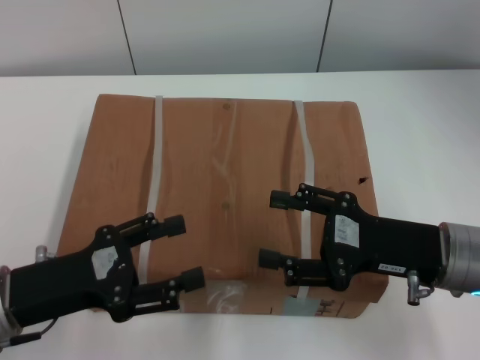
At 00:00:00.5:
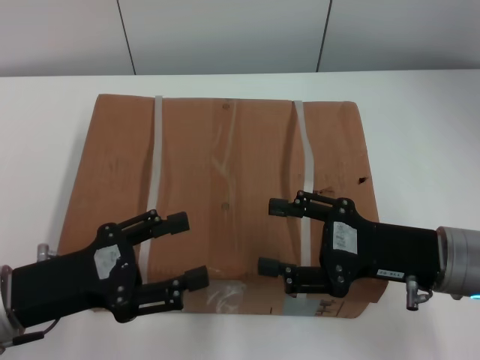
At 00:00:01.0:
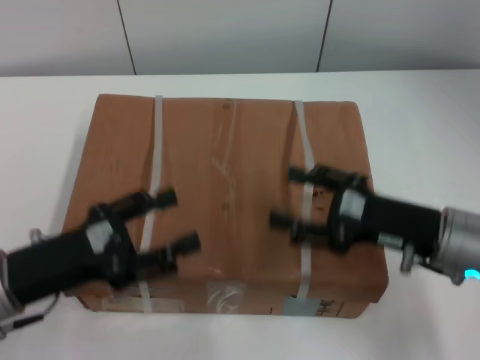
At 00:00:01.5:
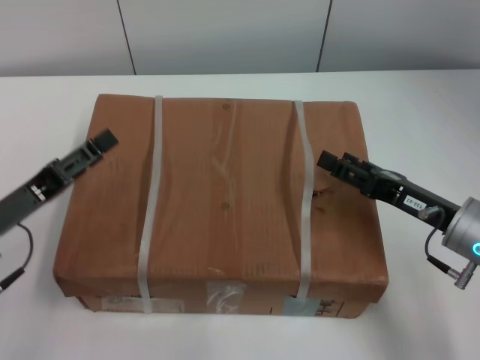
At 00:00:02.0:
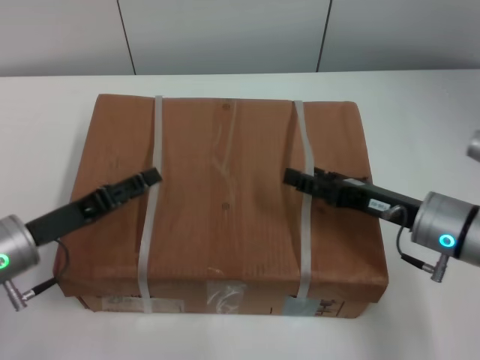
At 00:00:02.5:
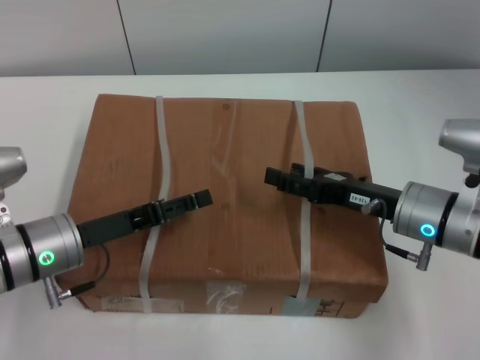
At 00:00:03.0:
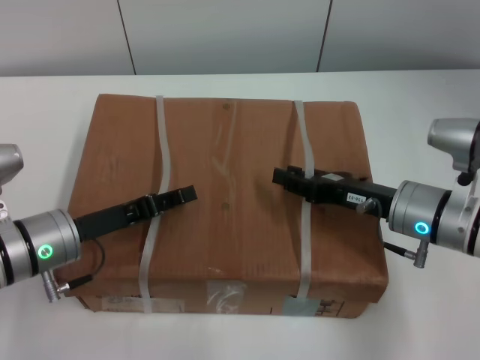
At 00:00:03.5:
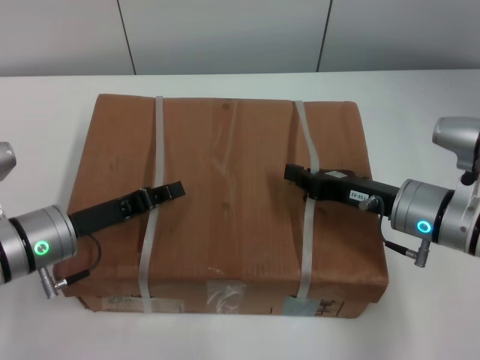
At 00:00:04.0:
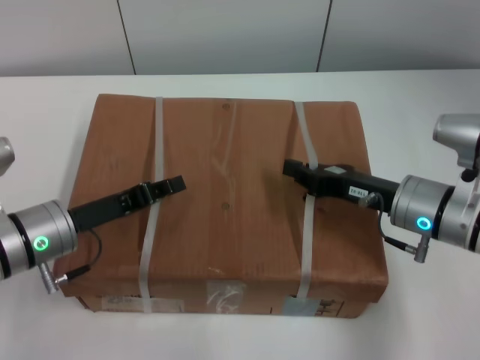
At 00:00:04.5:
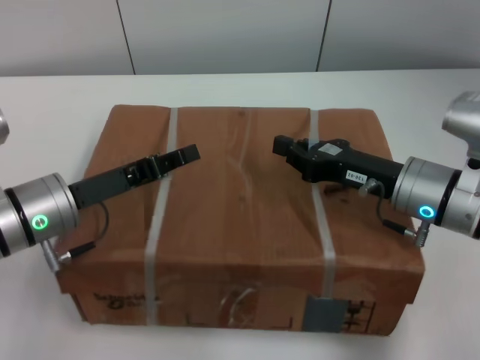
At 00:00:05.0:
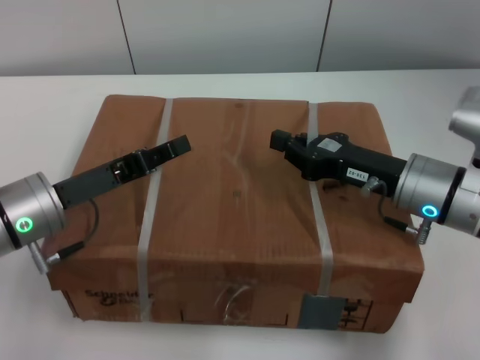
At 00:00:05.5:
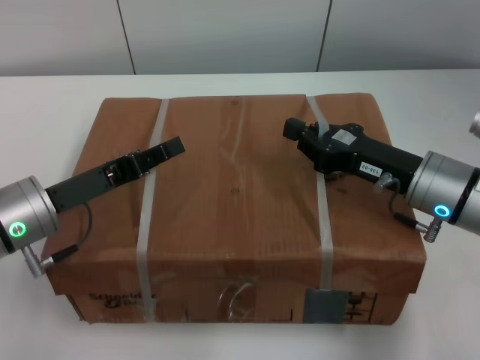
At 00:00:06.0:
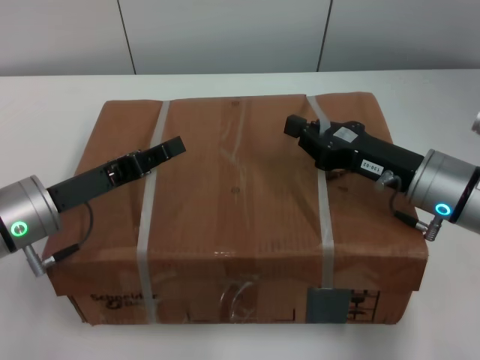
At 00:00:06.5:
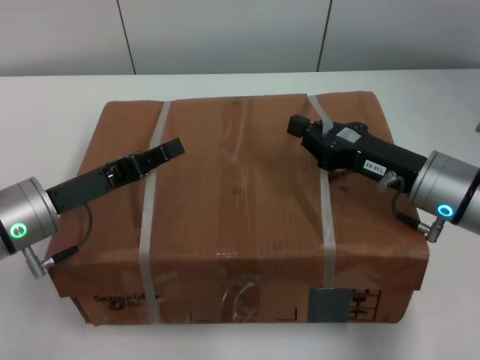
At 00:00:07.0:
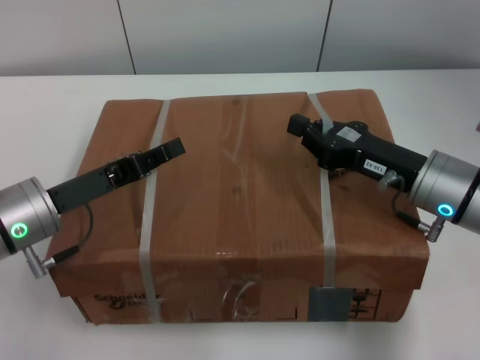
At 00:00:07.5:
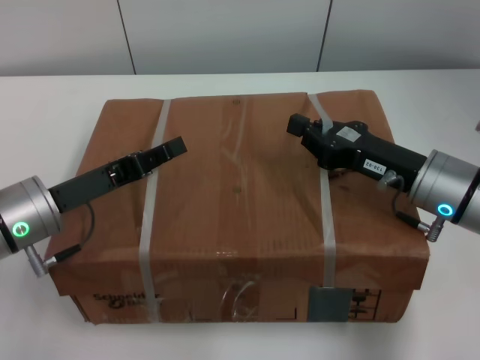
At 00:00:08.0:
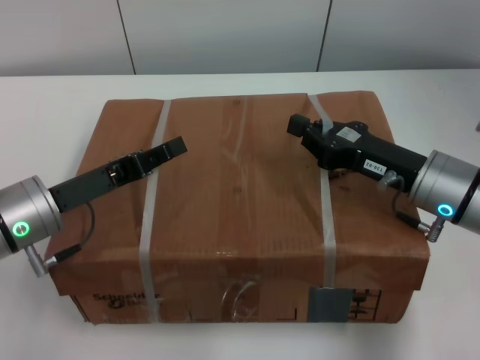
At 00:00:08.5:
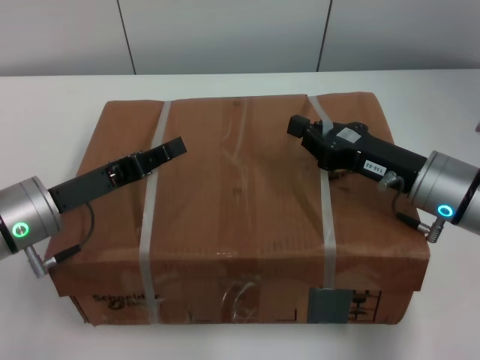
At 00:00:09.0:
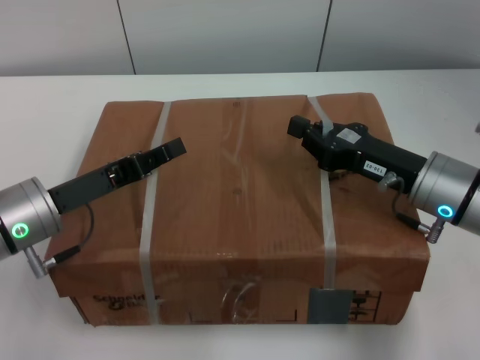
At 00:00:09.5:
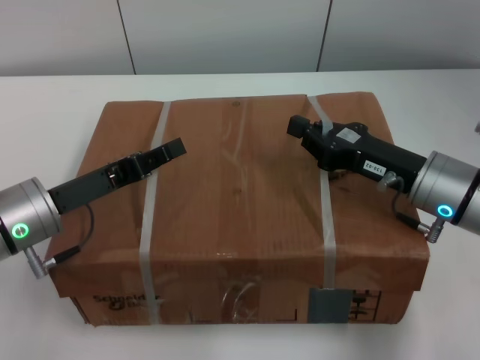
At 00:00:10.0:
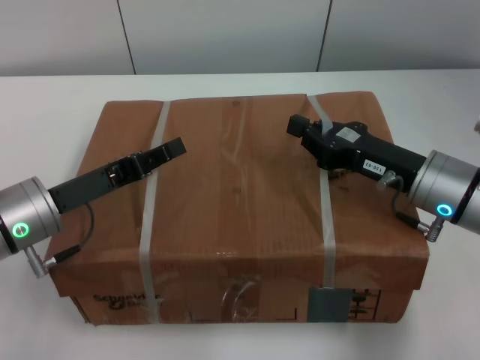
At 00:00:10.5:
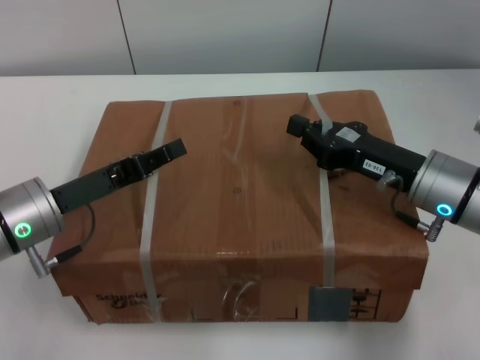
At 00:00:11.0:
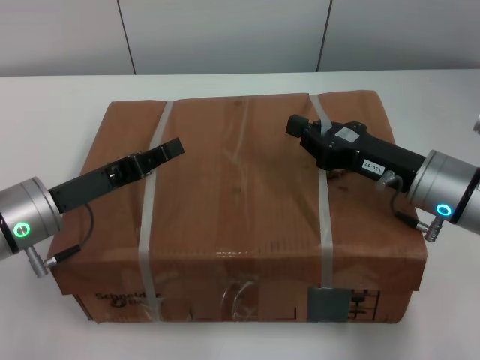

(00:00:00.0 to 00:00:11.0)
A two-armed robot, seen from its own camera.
Task of the whole recording: pick up the box from the table with both arms.
Step, 00:00:00.0 - 00:00:03.5: Grasp the bandage with left gripper.
Step, 00:00:00.0 - 00:00:03.5: Grasp the bandage with right gripper.
Step, 00:00:04.0 - 00:00:05.5: Lift the box with left gripper.
Step, 00:00:04.0 - 00:00:05.5: Lift the box with right gripper.
00:00:00.0 - 00:00:02.0: The right gripper moves about 5 cm. Meanwhile the left gripper travels forward by some 5 cm.
00:00:02.0 - 00:00:03.5: The left gripper closes; the right gripper closes its fingers.
00:00:05.5 - 00:00:11.0: The two grippers keep their place.
